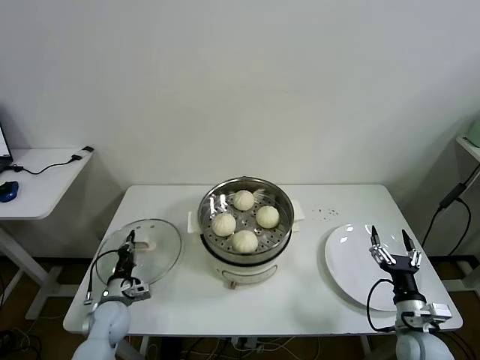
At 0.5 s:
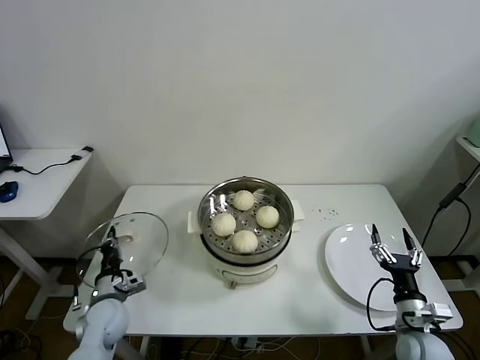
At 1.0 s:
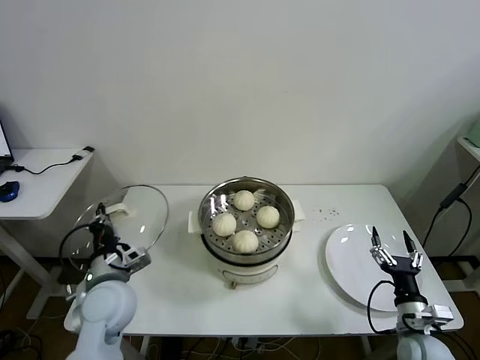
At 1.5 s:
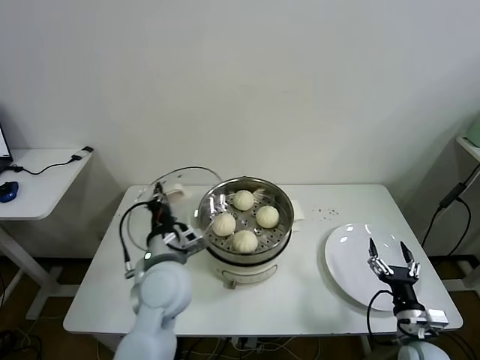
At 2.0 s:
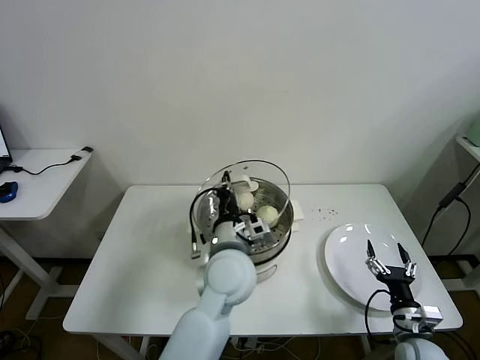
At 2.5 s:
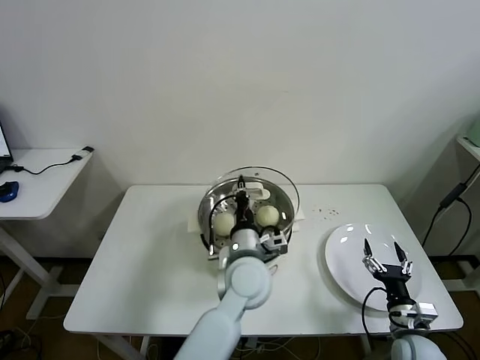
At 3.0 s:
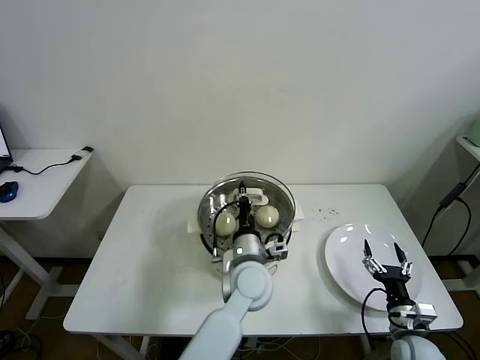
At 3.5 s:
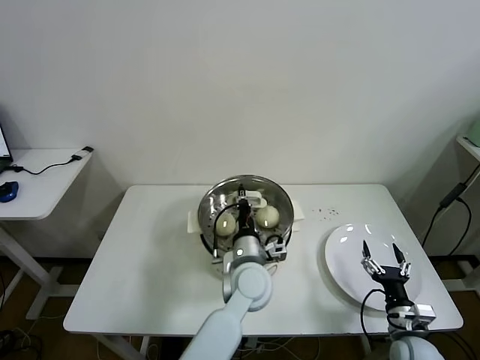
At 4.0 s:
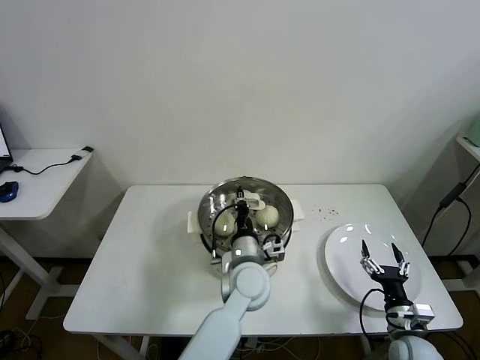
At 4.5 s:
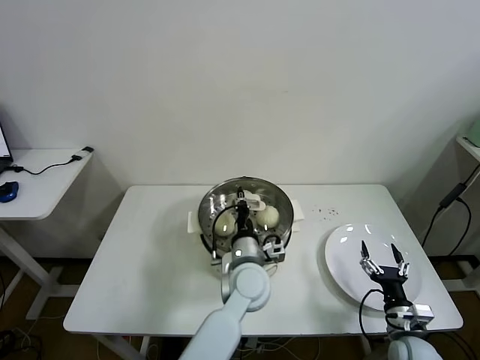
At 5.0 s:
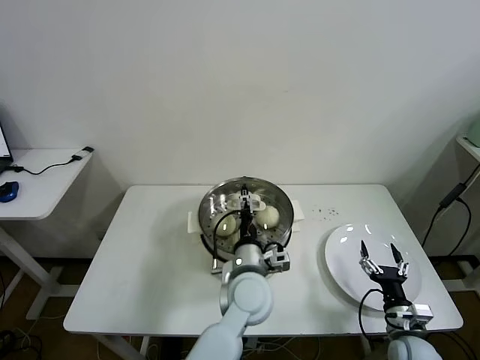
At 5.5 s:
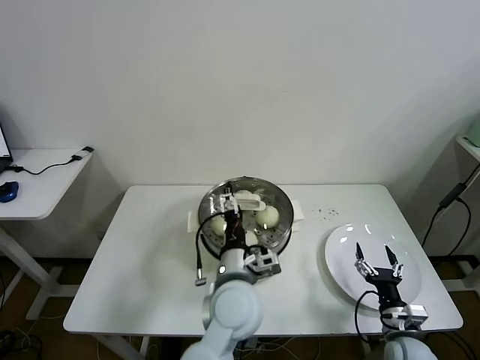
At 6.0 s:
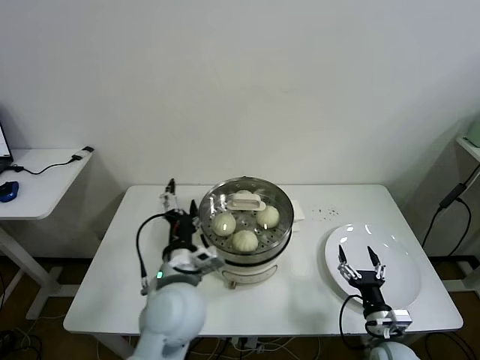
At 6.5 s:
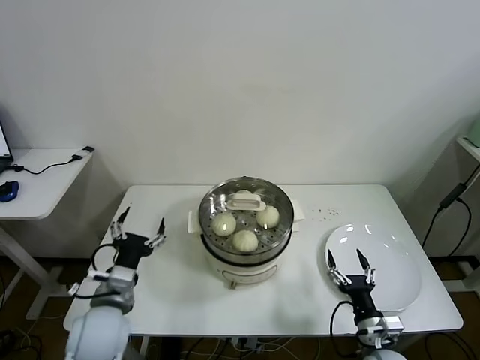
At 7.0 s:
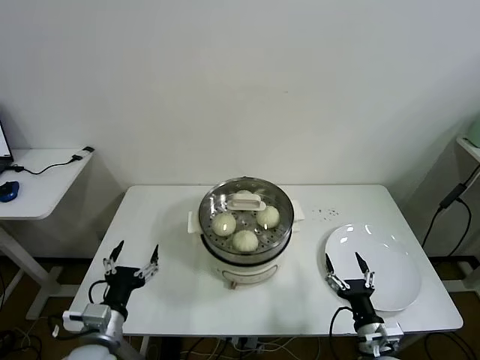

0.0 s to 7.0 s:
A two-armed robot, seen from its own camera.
Task of the whole recording: take steamed baozi put them in steamer then cover it.
Step, 0.0 to 4.5 s: Place the pot lid on the steamer with left gripper.
0.0 to 2.0 s: The left gripper heads to the right and upward, covering approximately 40 cm.
2.0 to 3.5 s: The left gripper goes some 10 cm downward.
3.5 to 5.0 s: The left gripper opens up.
5.0 to 7.0 s: The left gripper goes approximately 30 cm to the left and backward, and opens its fingers. The right gripper moves to the left, approximately 10 cm.
